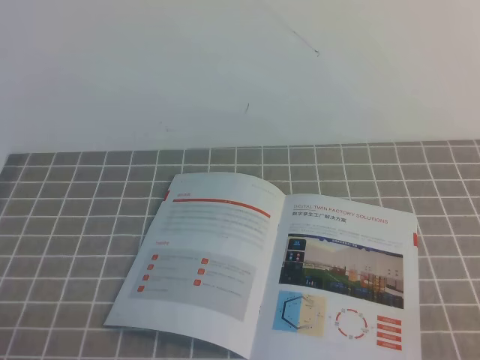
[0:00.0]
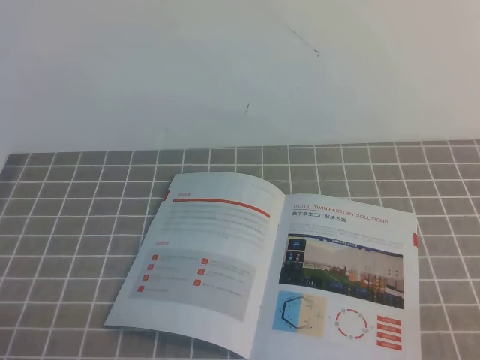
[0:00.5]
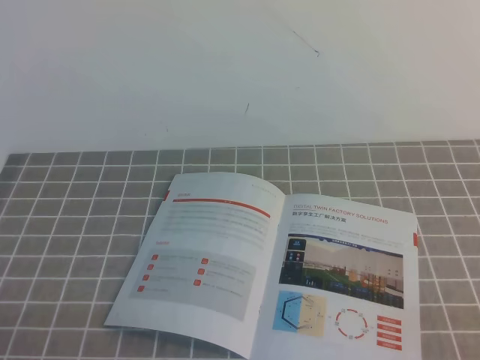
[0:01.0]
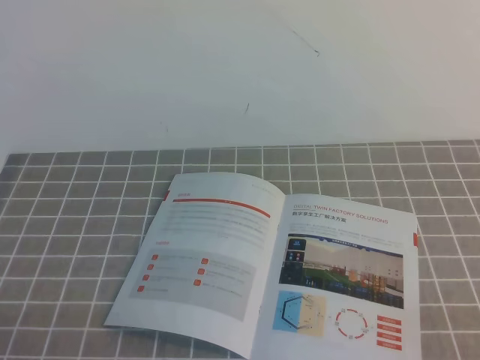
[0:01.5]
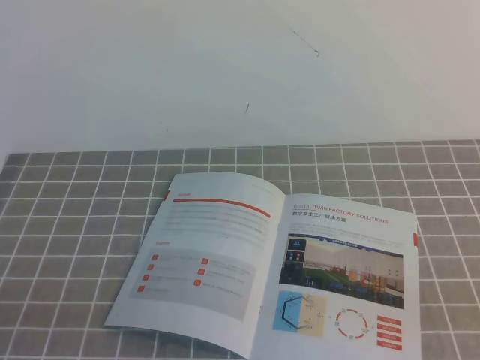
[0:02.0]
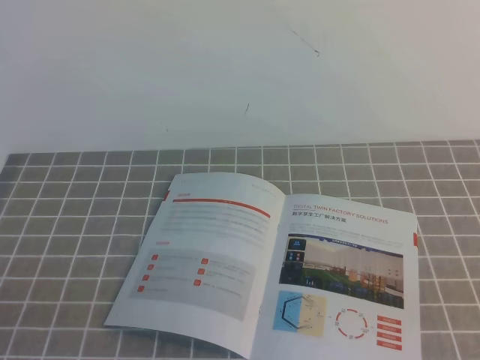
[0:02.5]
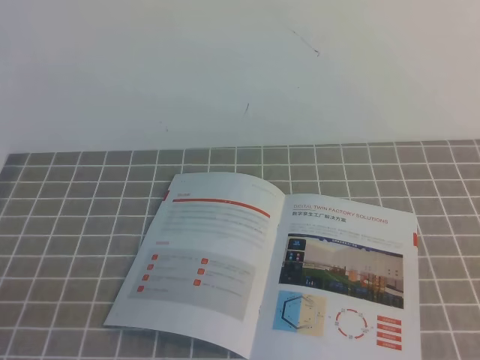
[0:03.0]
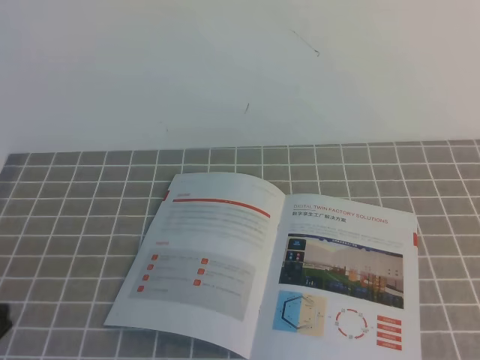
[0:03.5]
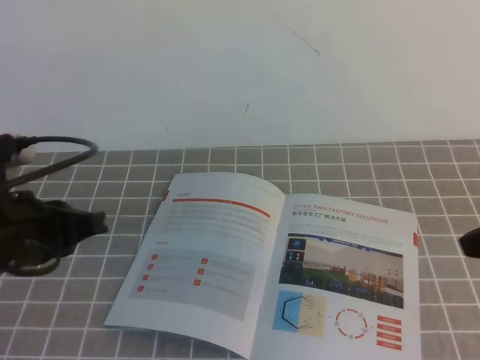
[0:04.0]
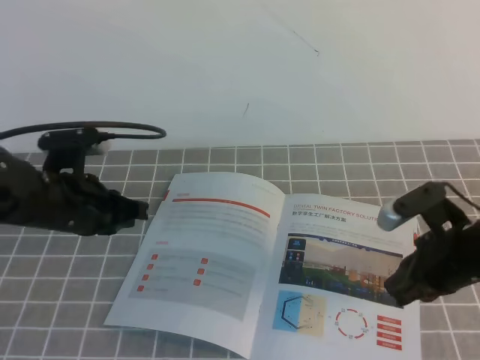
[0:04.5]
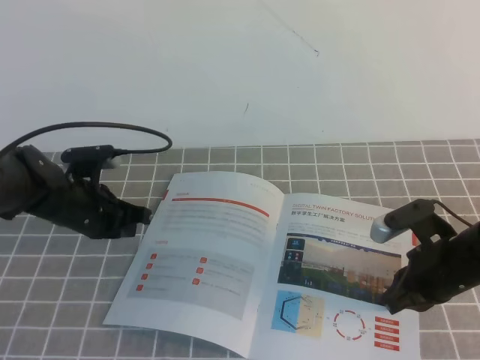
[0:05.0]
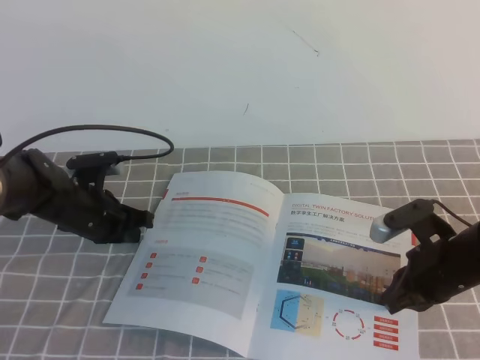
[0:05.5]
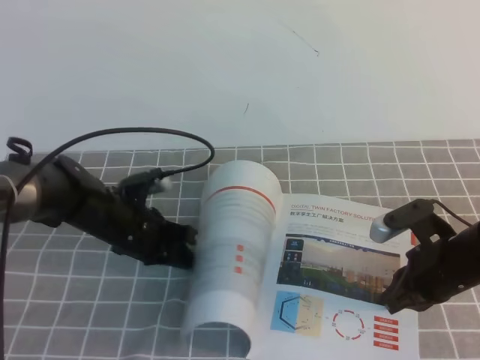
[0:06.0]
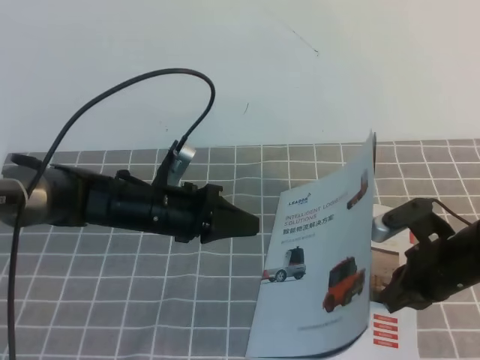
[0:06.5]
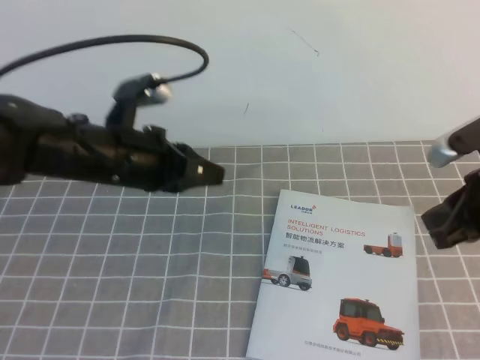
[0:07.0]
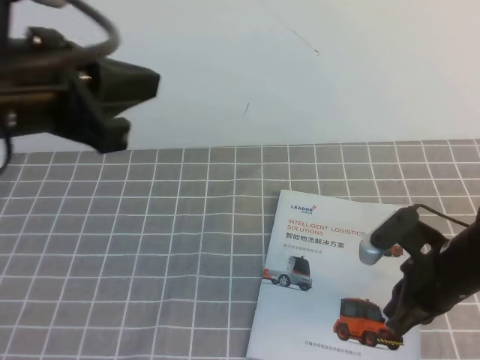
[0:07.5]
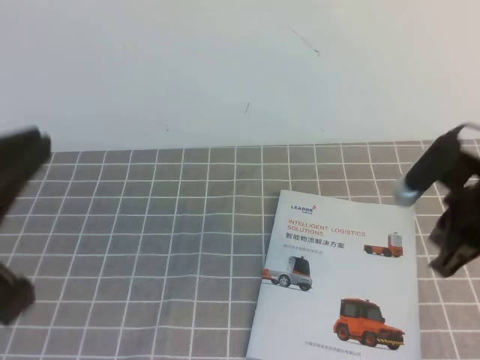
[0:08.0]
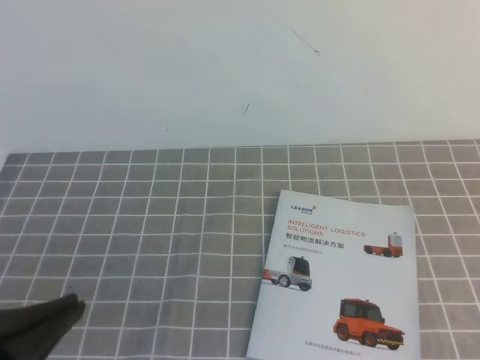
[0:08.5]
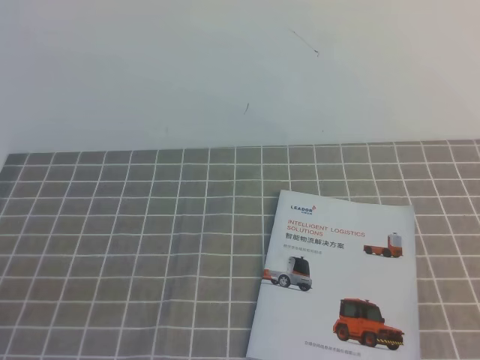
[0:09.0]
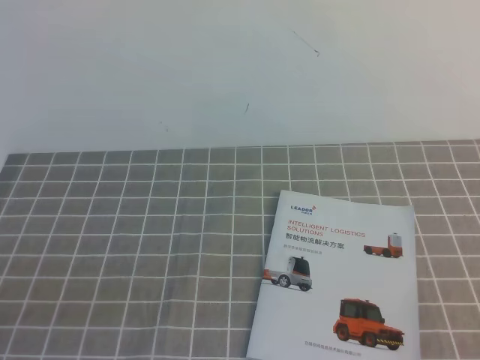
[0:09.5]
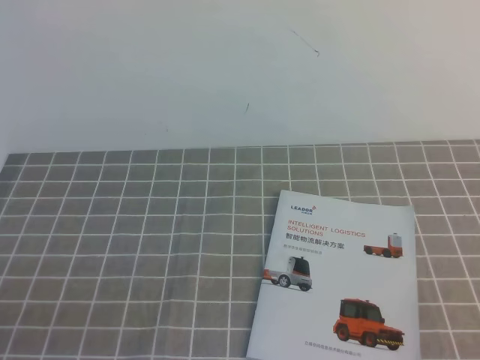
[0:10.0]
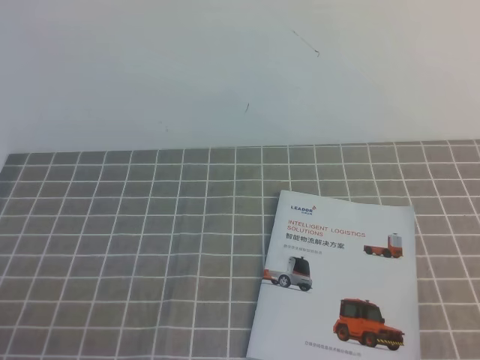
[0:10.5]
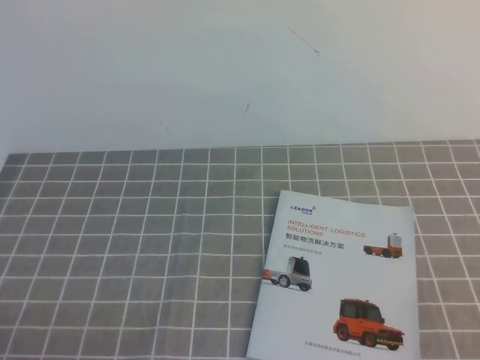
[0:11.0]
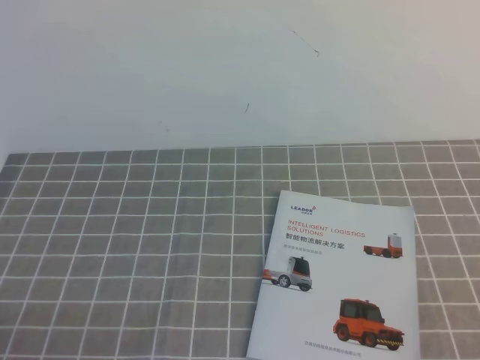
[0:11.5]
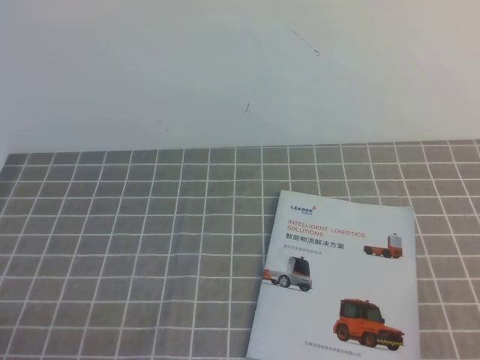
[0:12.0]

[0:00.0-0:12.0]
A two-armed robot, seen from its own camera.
Task of the whole recording: on the grey tablecloth, hold the book with one hand and close it with the other.
Step, 0:00.0 to 0:04.5: Close the book.
0:02.0 to 0:04.0: The grippers both shift forward by some 15 cm.
0:04.0 to 0:06.0: The right gripper shifts some 20 cm downward, to the left and forward; the left gripper heads forward, downward and to the right, covering some 20 cm.
0:06.0 to 0:08.0: The left gripper goes some 35 cm upward and backward, while the right gripper moves up and down over approximately 10 cm, changing direction 2 times.
0:08.0 to 0:10.0: The left gripper shifts roughly 15 cm downward and backward. Meanwhile the right gripper goes approximately 25 cm backward.

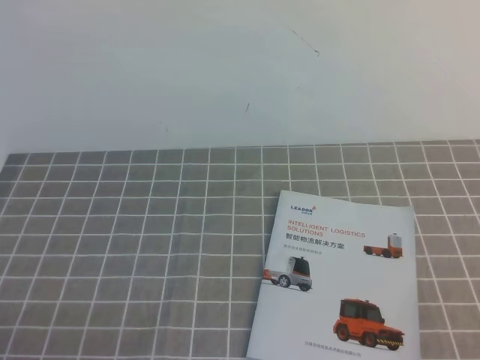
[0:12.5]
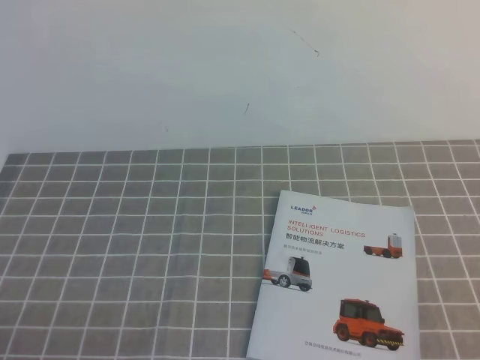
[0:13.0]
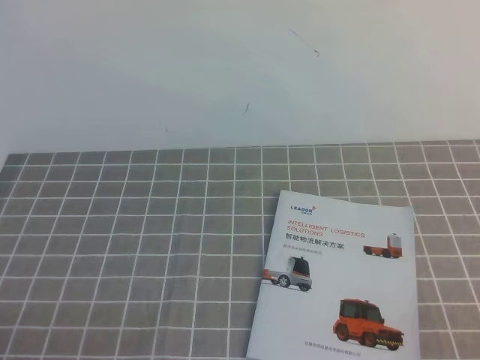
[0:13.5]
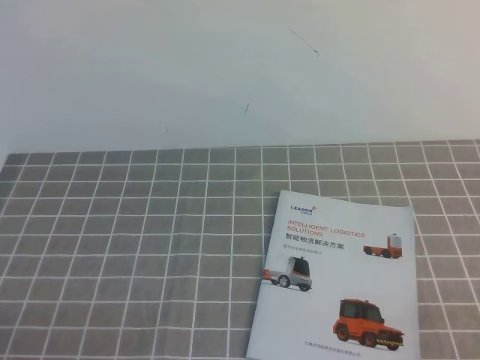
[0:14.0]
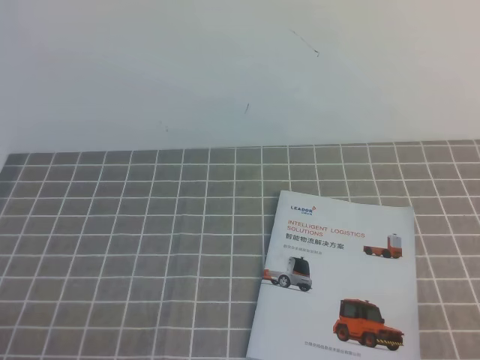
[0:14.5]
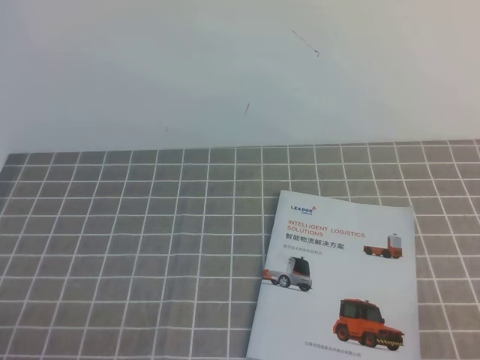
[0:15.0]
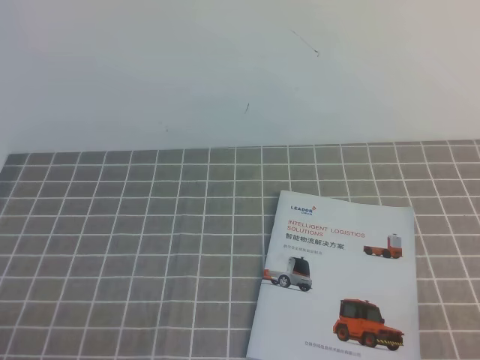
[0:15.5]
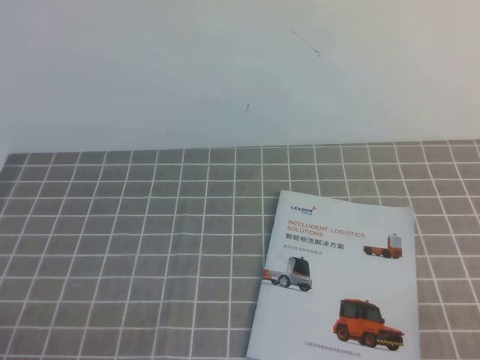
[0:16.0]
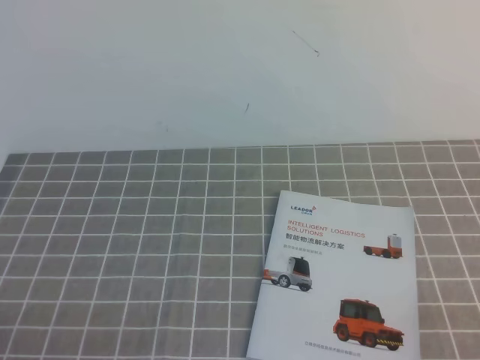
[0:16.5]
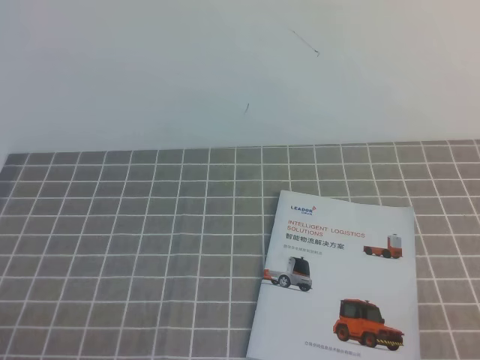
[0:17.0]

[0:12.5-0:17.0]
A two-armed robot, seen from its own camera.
Task of the whole recording: on the grey tablecloth, hold the book with one hand and close it with the other.
0:14.5 to 0:17.0: The two grippers keep their place.
